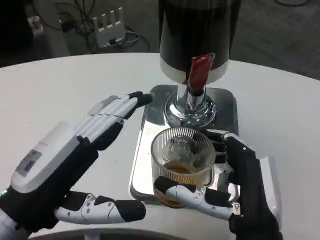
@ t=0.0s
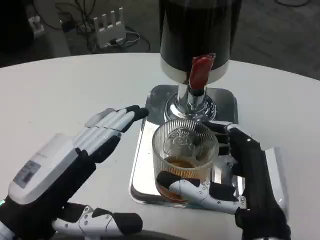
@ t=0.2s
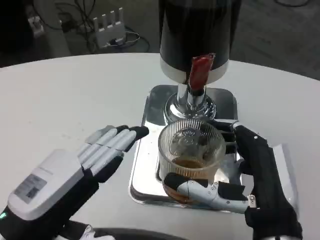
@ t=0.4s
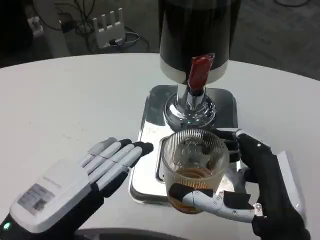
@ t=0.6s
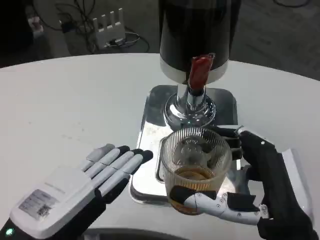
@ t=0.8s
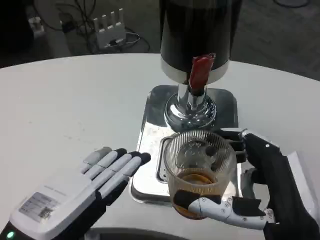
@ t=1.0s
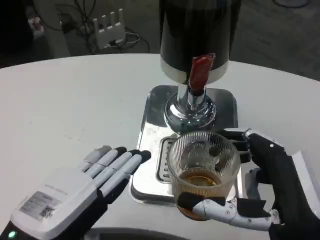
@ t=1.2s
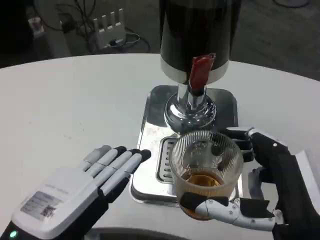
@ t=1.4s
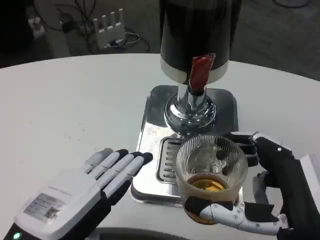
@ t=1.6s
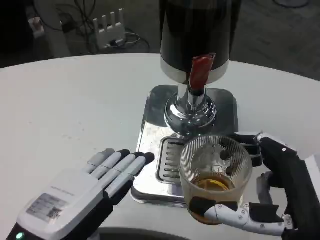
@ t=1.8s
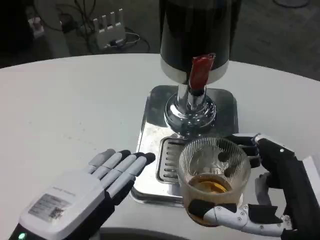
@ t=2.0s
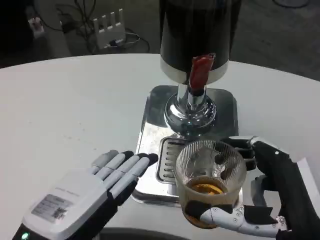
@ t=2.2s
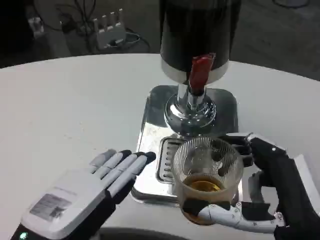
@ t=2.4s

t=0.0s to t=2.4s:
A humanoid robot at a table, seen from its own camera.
Task of the whole recording: Grasp the cup under the faucet to collect the drink, then remove the cup.
t=0.0s to t=1.2s: The right hand changes place by some 5 cm.
t=1.2s to t=2.4s: Both hands stay put.

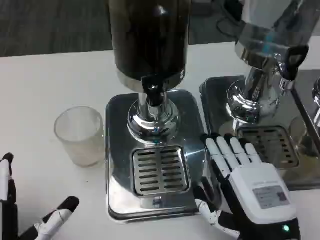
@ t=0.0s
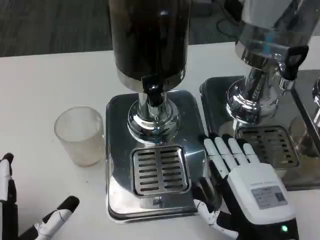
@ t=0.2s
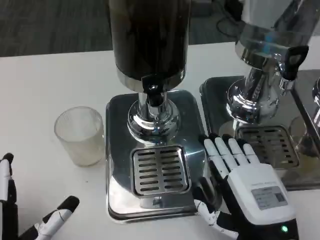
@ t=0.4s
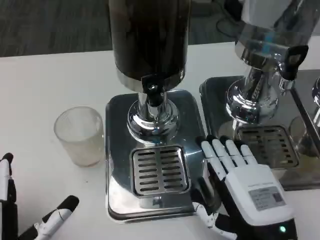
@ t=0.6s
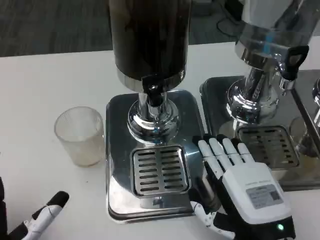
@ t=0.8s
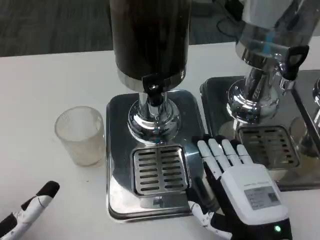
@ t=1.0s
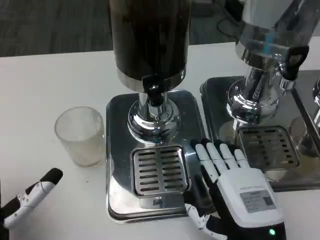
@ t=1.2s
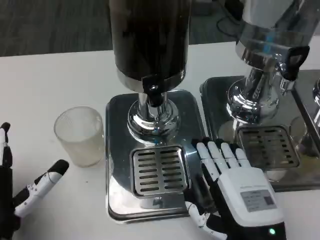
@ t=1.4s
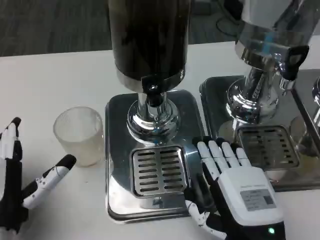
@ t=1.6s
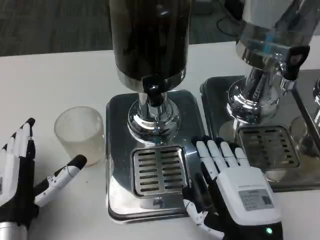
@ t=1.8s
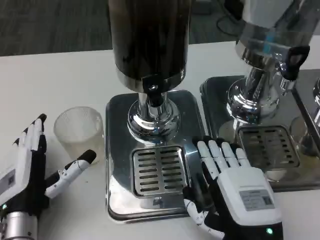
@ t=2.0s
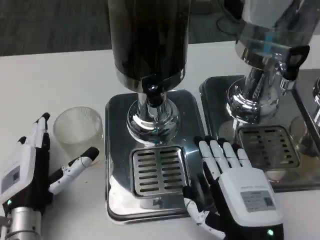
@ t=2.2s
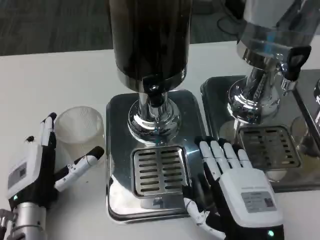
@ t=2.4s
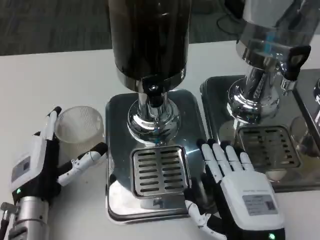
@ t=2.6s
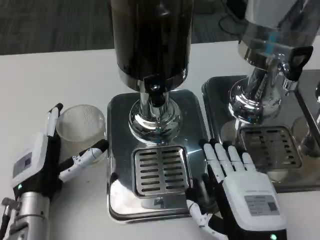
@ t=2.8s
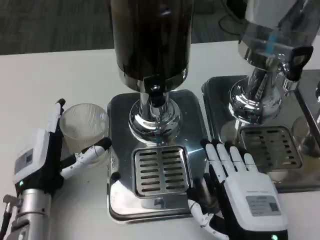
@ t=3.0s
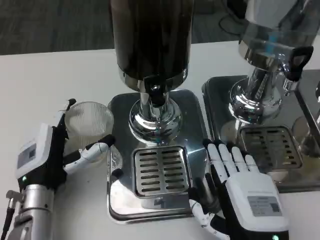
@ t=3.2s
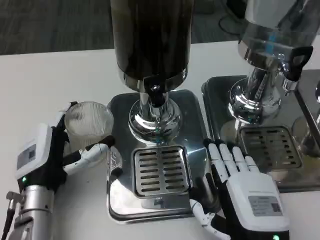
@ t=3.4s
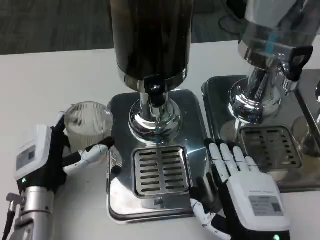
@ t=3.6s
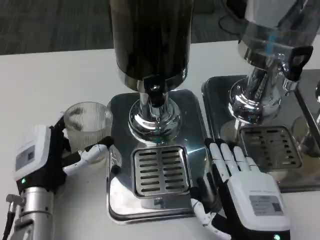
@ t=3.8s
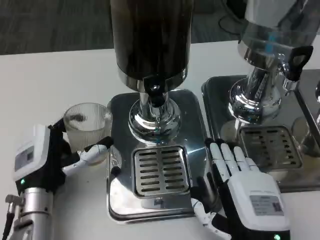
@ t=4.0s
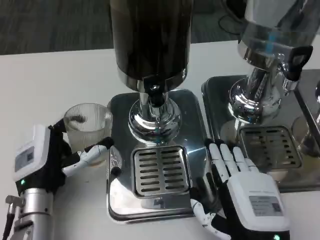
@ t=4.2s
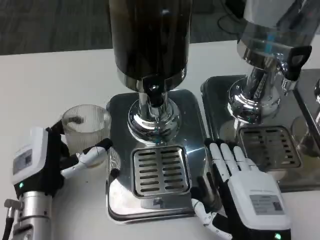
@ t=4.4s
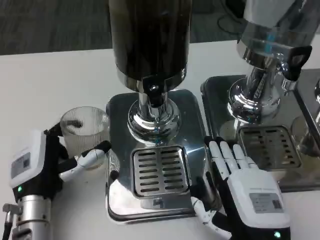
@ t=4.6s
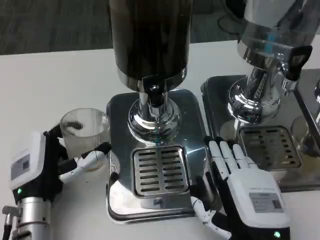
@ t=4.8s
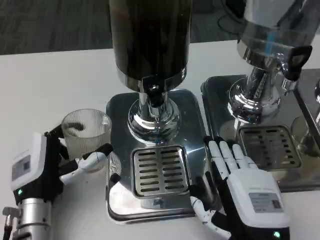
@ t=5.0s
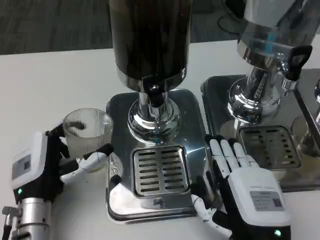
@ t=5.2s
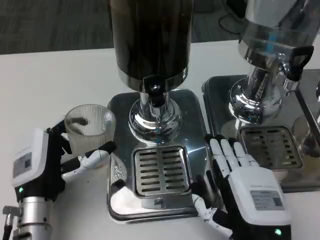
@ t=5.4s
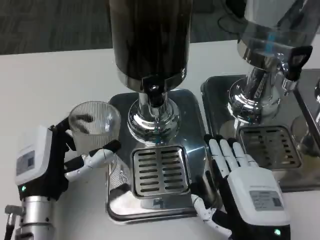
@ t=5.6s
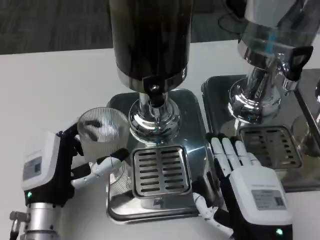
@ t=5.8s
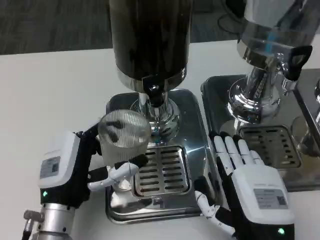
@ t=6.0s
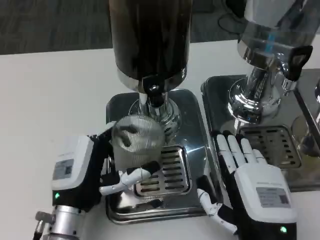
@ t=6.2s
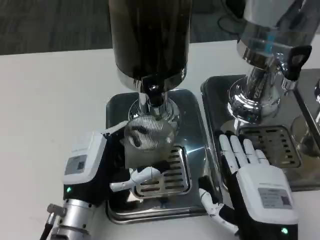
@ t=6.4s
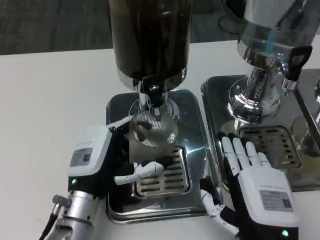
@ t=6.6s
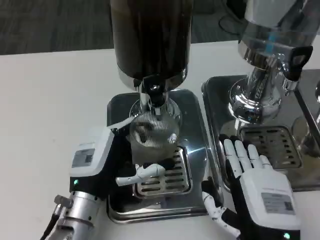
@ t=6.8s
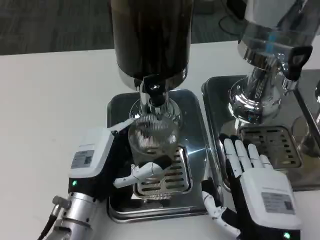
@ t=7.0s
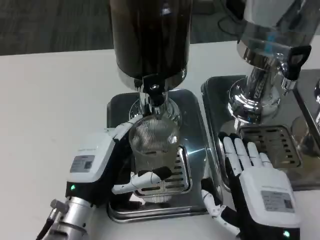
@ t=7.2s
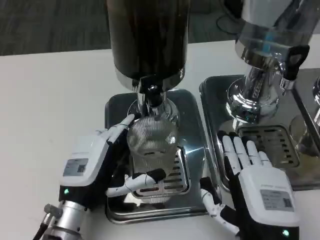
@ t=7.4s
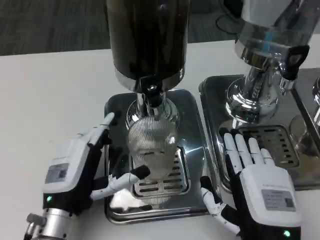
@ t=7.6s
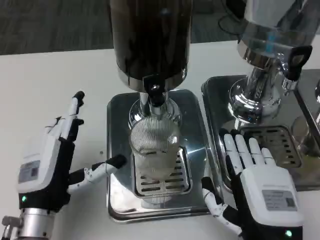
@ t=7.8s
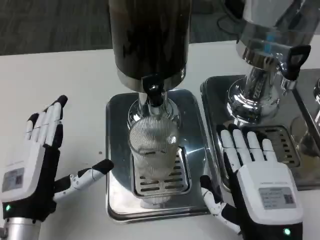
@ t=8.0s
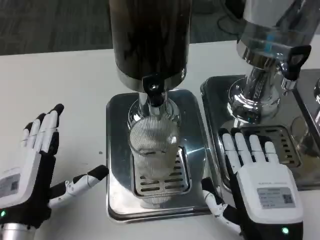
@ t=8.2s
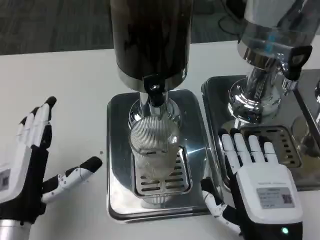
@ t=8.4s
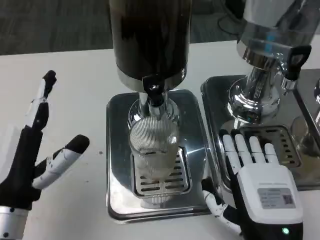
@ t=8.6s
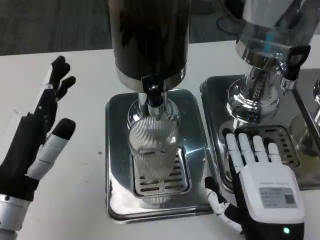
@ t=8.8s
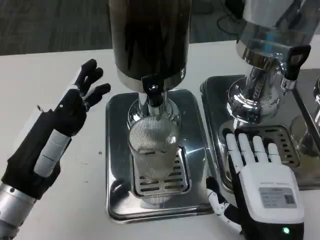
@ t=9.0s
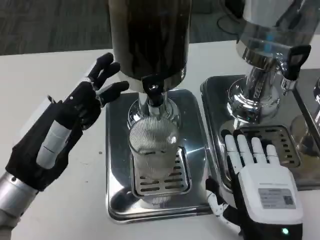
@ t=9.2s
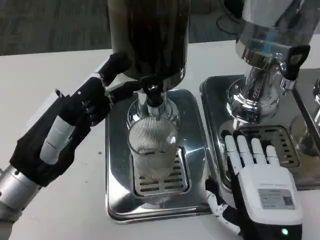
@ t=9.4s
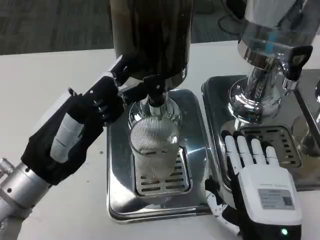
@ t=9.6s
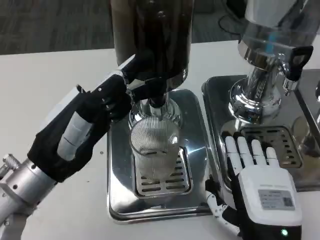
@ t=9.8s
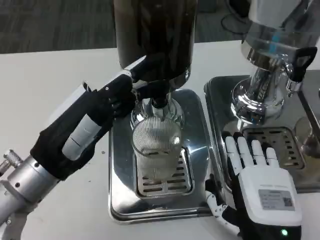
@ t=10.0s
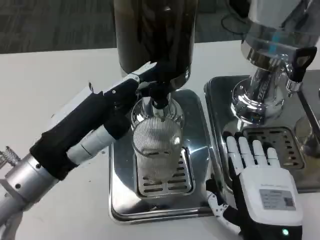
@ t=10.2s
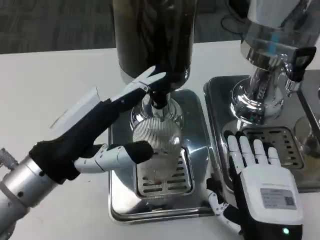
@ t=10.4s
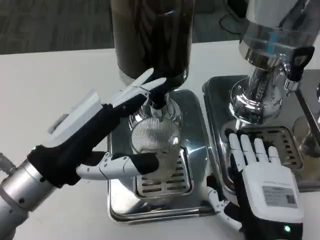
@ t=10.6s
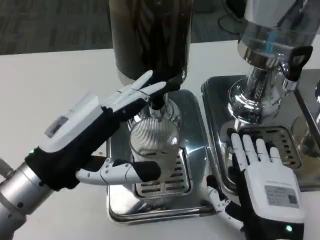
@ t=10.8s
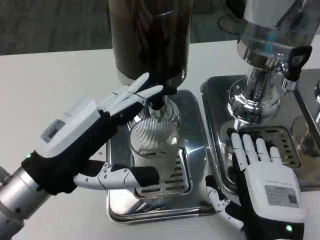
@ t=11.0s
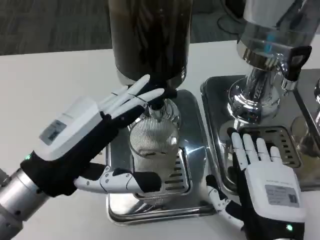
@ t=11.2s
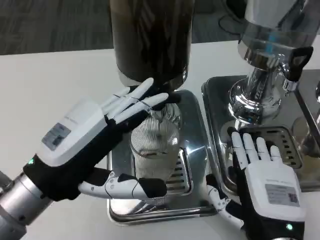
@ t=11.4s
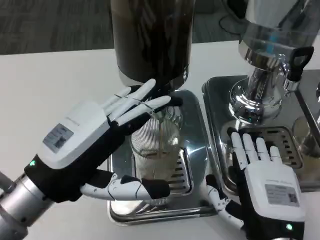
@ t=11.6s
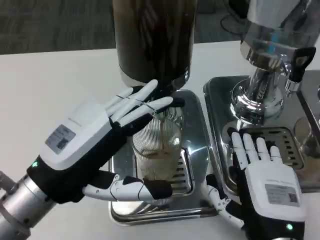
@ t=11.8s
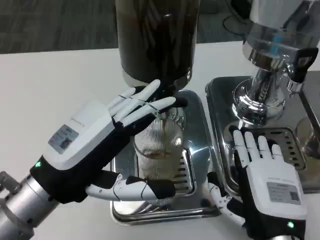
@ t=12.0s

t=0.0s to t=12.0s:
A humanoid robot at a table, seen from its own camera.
Task of the whole recording: Grasp the cup under the faucet to collect the drink, then remove the cup.
t=0.0s to t=1.6s: The left hand moves forward, about 10 cm.
t=1.6s to t=3.0s: The left hand goes approximately 5 cm forward.
t=3.0s to t=4.4s: The hands stay close to where they were, moving slightly.
t=7.6s to t=9.0s: The left hand moves upward and to the left, approximately 10 cm.
t=9.0s to t=10.4s: The left hand travels upward by approximately 5 cm.

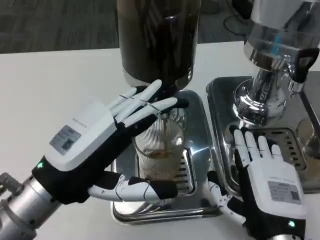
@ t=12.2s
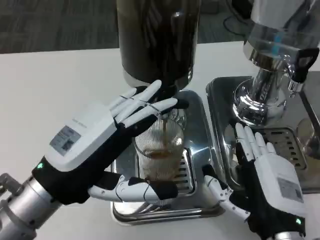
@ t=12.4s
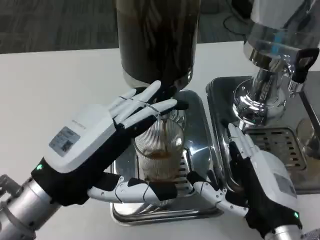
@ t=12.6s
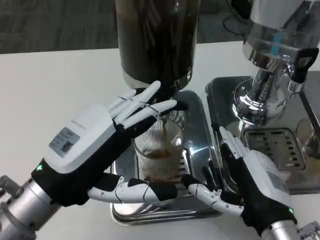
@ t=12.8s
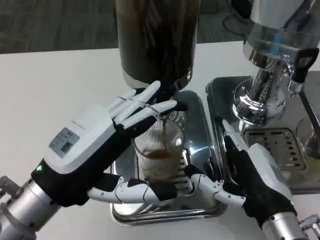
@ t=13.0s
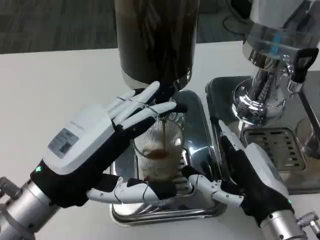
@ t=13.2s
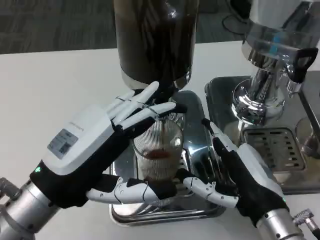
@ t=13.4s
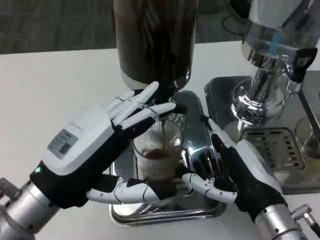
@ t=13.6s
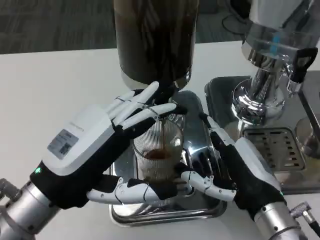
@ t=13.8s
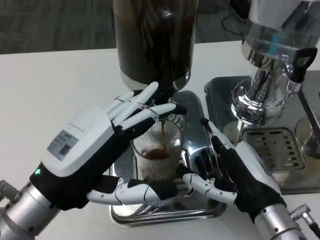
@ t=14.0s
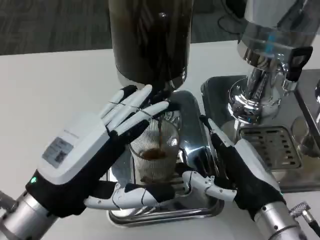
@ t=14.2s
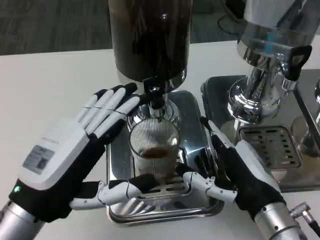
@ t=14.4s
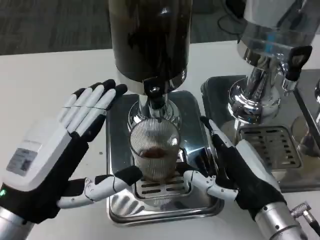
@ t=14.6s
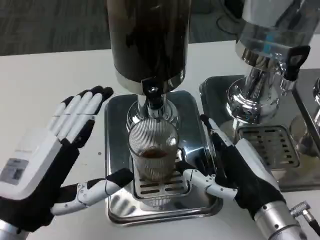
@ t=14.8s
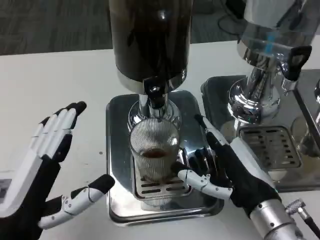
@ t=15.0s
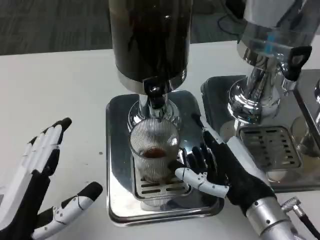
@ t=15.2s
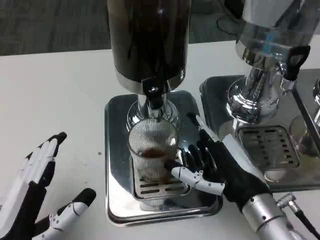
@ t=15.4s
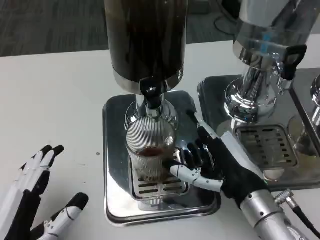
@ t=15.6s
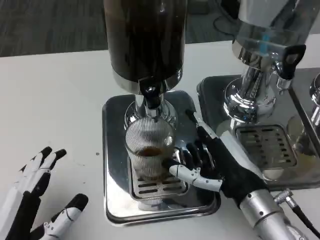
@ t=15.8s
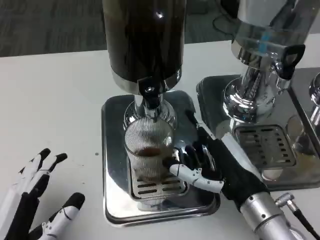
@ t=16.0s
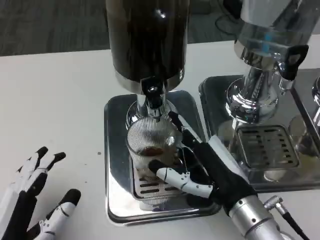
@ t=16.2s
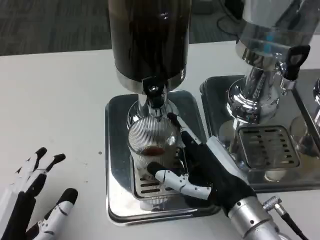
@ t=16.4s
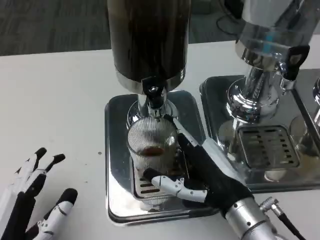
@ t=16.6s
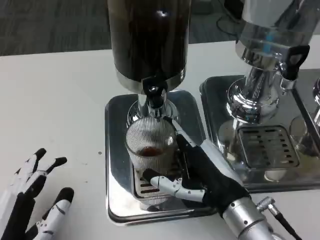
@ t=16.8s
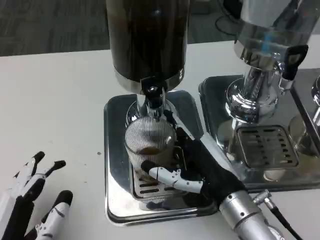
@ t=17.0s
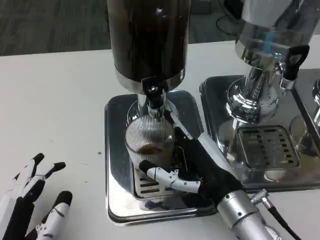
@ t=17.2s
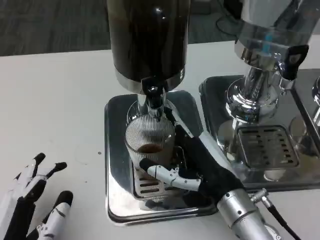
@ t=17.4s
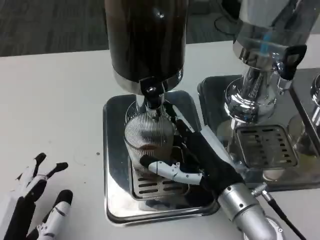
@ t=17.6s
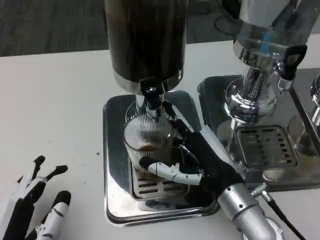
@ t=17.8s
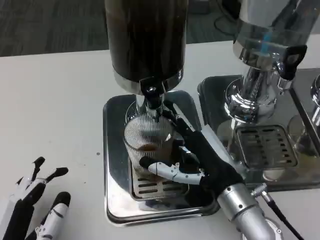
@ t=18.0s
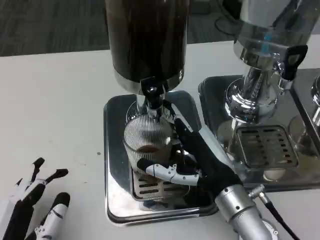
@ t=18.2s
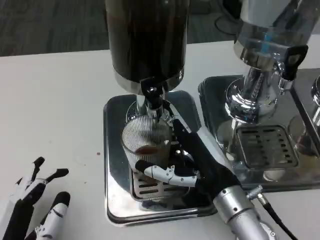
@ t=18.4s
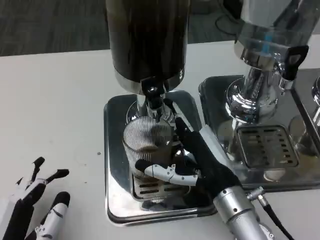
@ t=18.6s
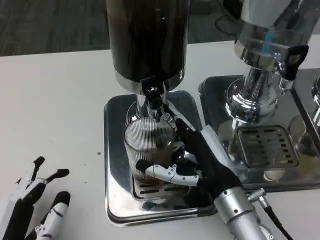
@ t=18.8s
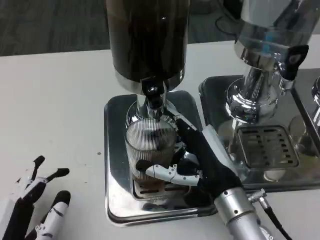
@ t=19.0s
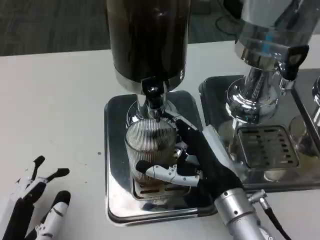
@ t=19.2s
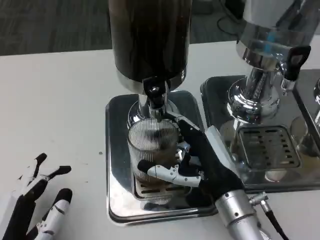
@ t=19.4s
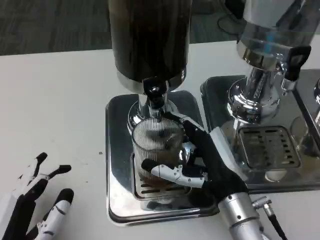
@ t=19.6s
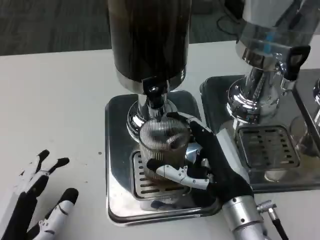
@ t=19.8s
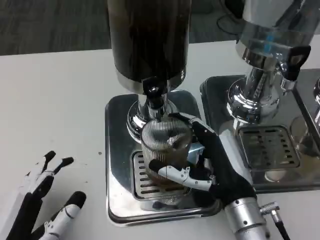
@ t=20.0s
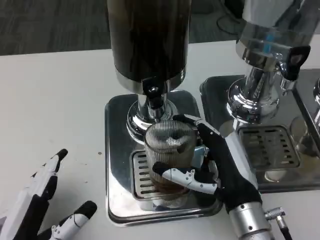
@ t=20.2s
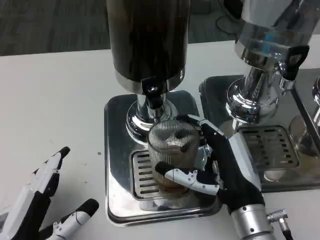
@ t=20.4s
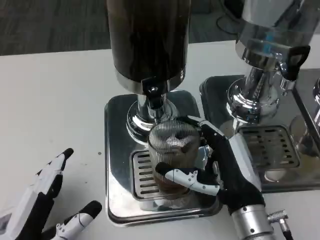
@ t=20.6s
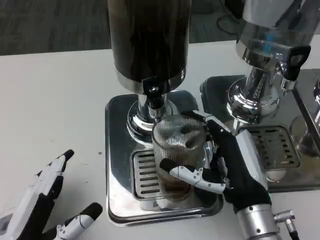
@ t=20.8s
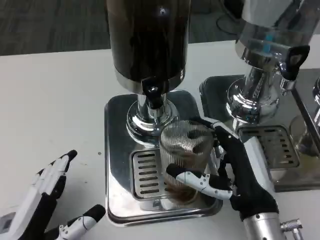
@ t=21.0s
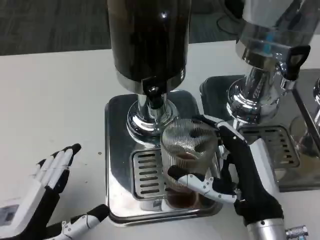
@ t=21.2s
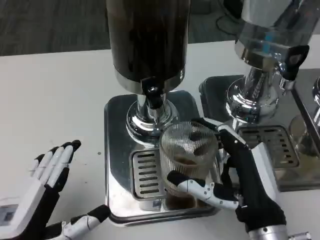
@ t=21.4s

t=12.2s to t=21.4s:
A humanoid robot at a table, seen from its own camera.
Task of the whole recording: Grasp the cup under the faucet to collect the drink, then remove the cup.
t=13.8s to t=15.2s: The left hand goes about 10 cm backward and downward.
t=16.8s to t=18.4s: The hands make only small movements.
t=19.8s to t=21.4s: The right hand shifts by about 5 cm.
